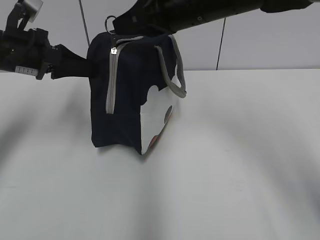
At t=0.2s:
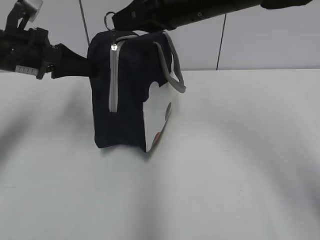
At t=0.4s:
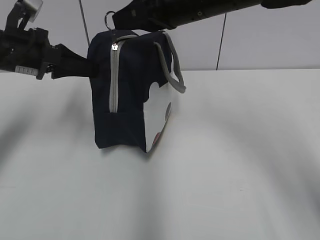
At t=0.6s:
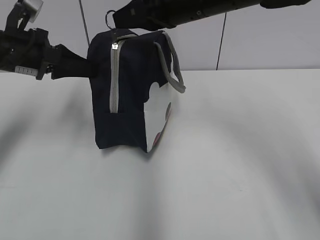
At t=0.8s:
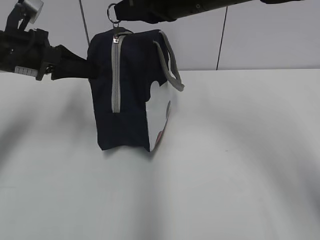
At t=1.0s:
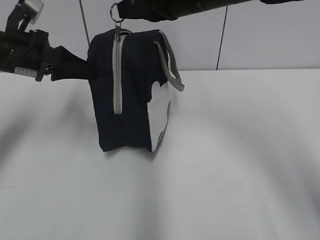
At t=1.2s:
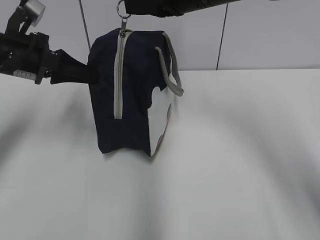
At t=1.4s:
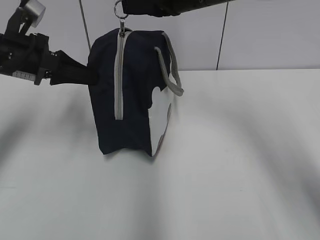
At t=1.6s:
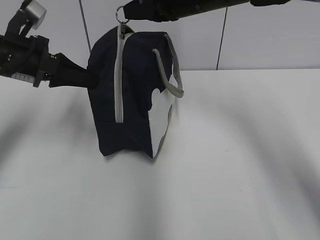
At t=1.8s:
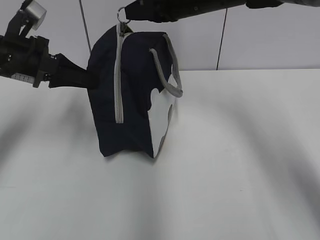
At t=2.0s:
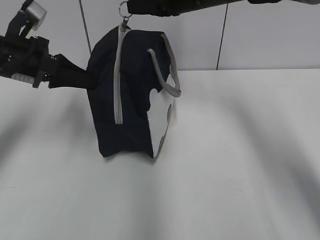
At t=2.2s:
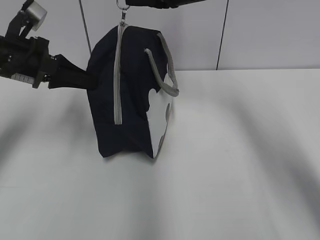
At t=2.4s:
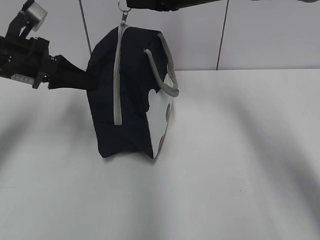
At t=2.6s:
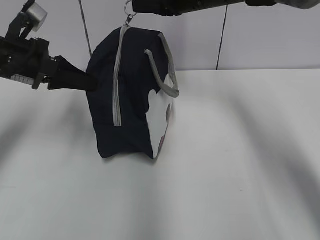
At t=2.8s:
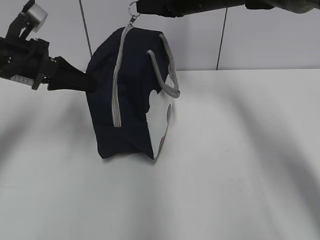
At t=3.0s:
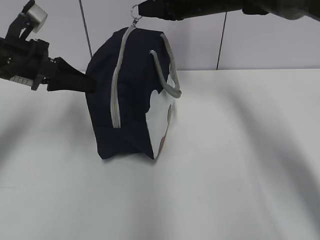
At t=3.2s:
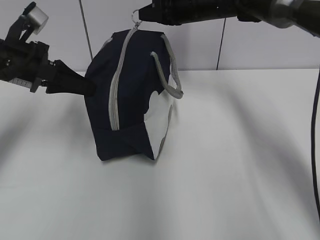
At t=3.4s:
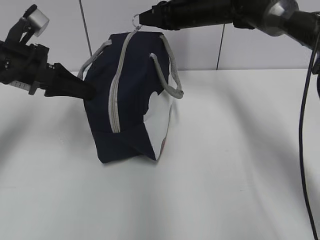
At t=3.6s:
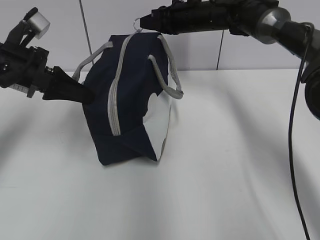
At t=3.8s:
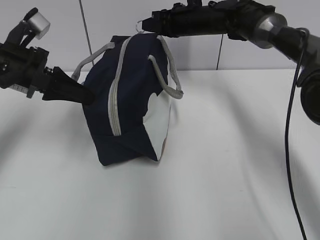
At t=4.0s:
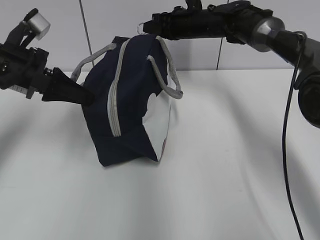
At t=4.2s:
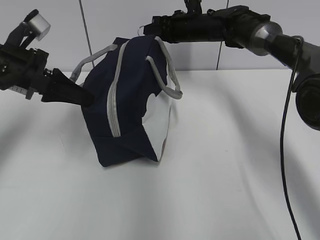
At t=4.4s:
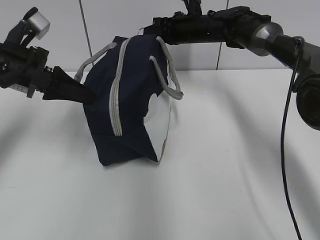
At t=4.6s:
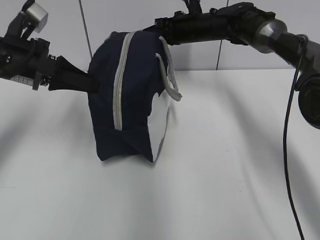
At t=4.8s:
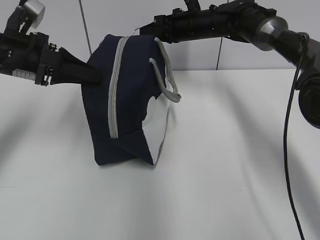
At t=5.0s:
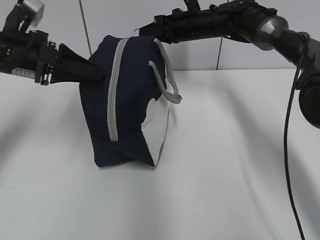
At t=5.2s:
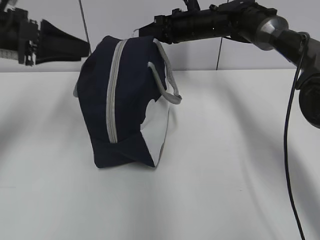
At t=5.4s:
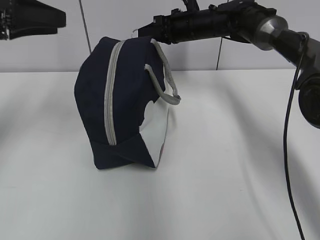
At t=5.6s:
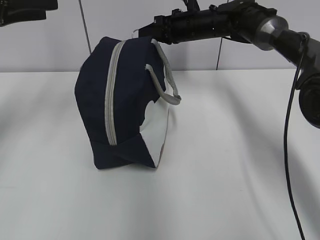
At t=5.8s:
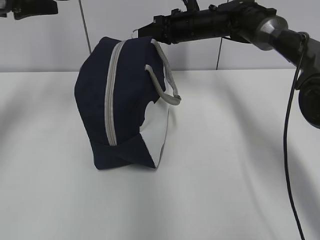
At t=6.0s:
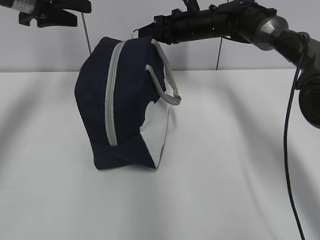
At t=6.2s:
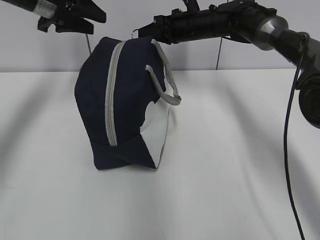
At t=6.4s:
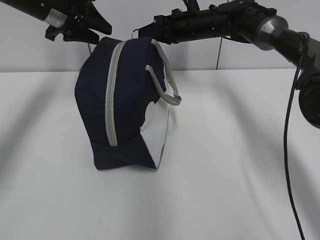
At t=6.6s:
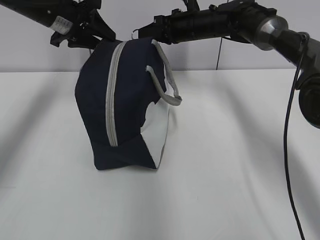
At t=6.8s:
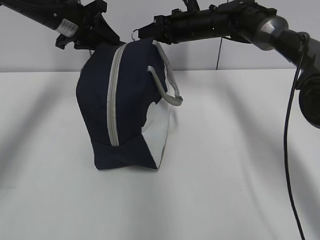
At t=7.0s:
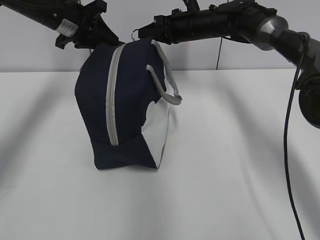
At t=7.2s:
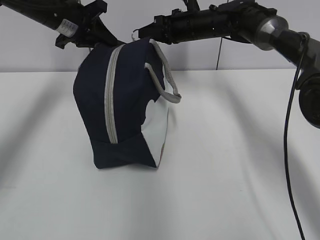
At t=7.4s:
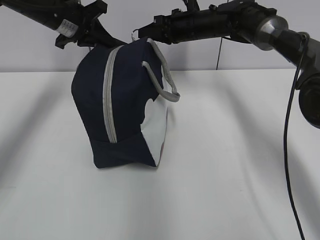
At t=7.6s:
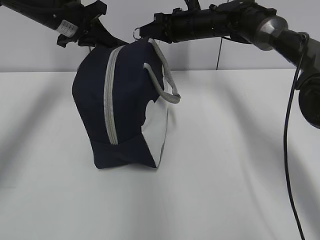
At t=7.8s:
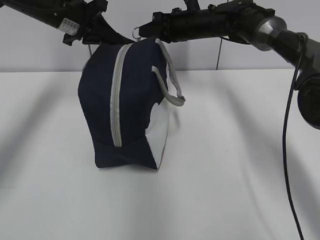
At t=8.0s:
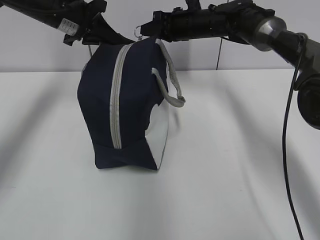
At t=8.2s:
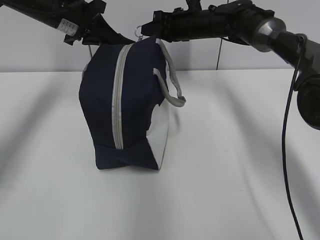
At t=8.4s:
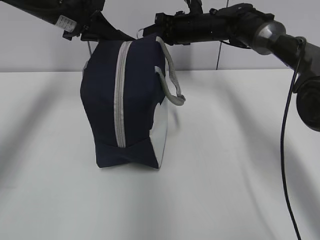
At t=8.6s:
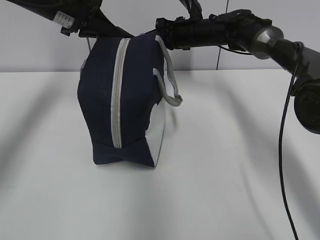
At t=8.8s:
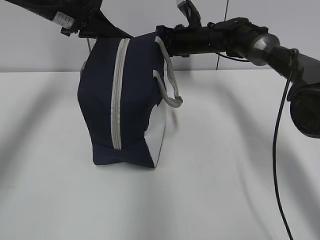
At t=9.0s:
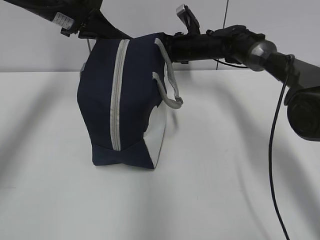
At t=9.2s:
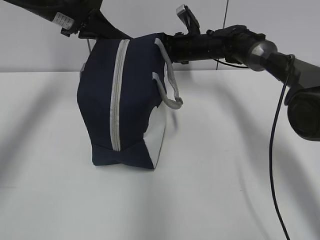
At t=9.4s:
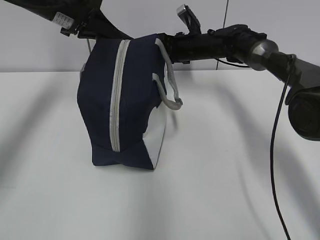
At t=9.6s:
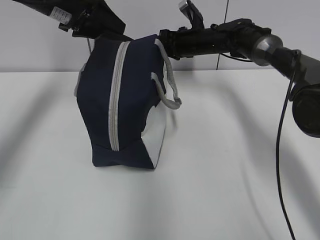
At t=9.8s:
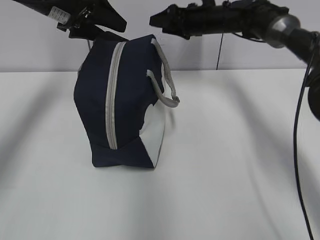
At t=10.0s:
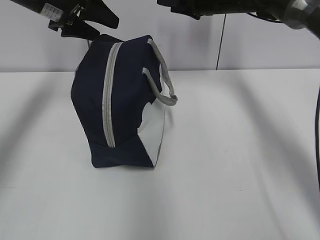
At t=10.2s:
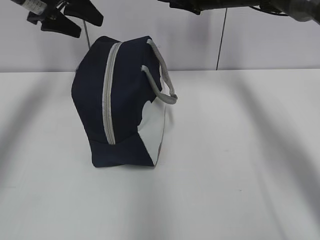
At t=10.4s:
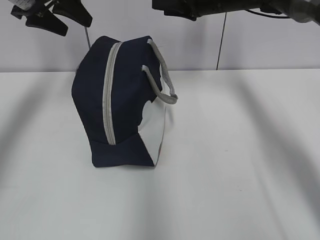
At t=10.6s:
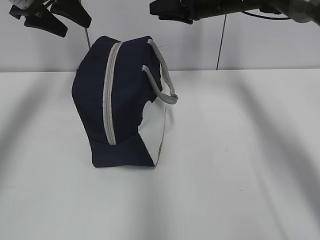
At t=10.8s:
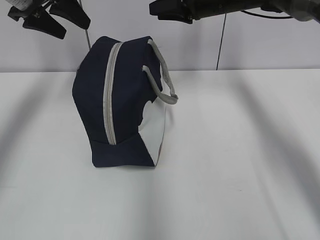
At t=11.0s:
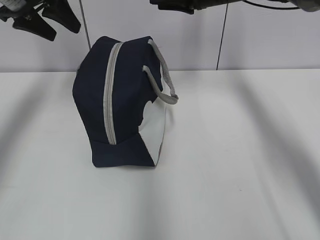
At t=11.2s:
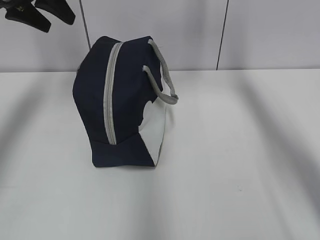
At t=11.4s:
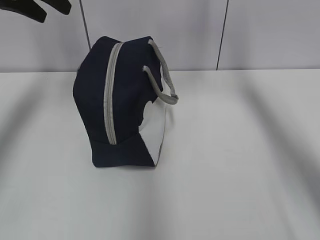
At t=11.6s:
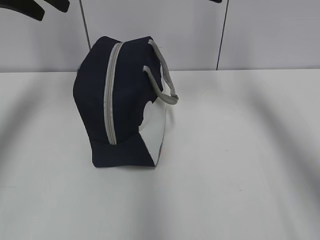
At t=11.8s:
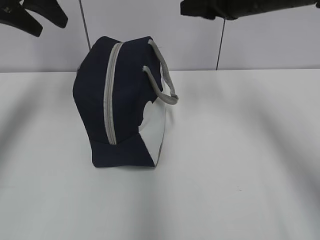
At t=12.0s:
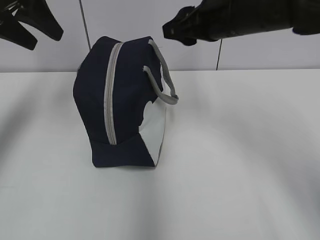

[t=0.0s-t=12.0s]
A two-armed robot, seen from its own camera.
t=0.0s to t=1.6s: The right gripper is displaced forward by some 5 cm.
t=1.6s to t=3.0s: The right gripper goes roughly 10 cm forward.
t=3.0s to t=4.4s: The right gripper heads downward and forward, covering roughly 10 cm.
t=4.4s to t=6.0s: The left gripper goes roughly 15 cm forward and upward, and opens.
t=6.0s to t=7.6s: The left gripper shifts by roughly 10 cm, and closes up.
t=7.6s to t=9.0s: The right gripper moves downward, some 5 cm.
t=9.0s to t=10.4s: The left gripper ends up about 5 cm from where it was, and opens up. Meanwhile the right gripper travels upward by some 10 cm, and opens its fingers.
t=10.4s to t=12.0s: The left gripper shifts some 5 cm backward. The right gripper goes some 15 cm backward.

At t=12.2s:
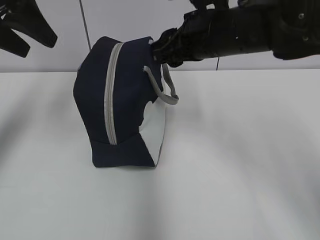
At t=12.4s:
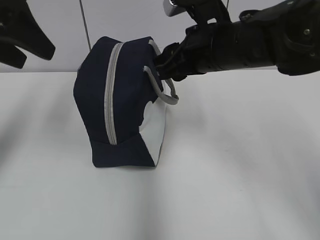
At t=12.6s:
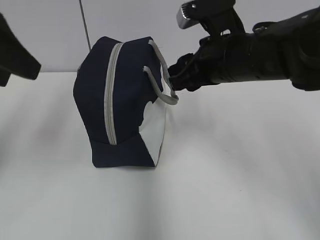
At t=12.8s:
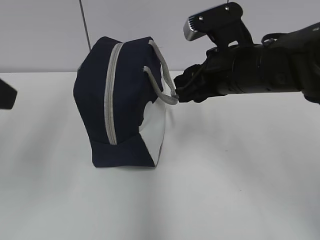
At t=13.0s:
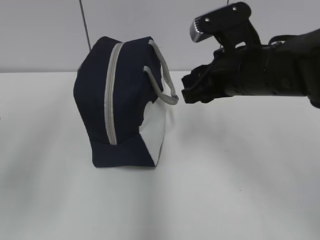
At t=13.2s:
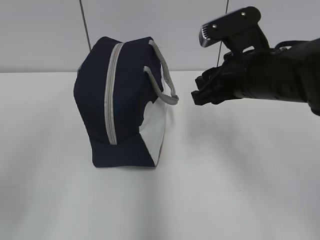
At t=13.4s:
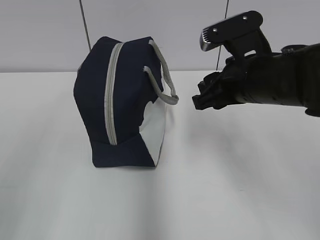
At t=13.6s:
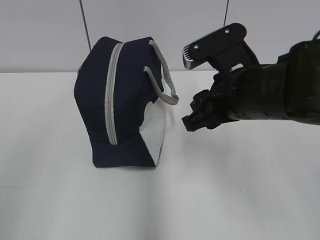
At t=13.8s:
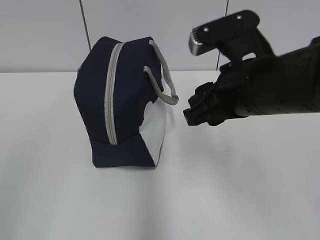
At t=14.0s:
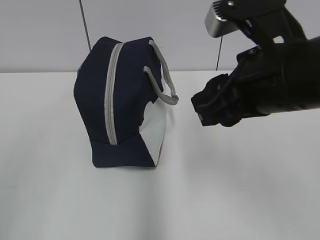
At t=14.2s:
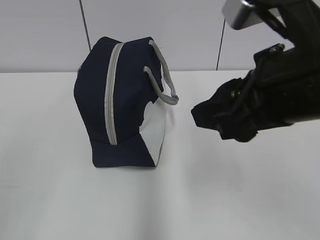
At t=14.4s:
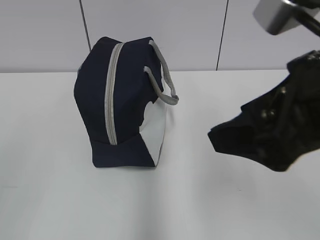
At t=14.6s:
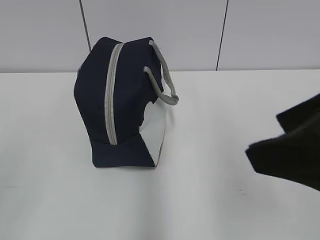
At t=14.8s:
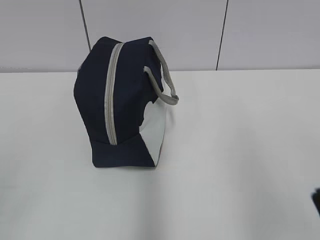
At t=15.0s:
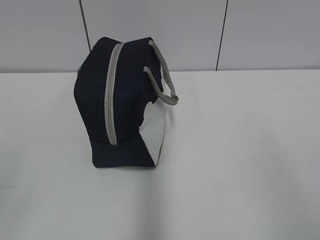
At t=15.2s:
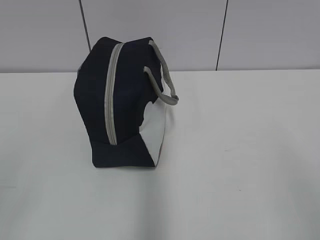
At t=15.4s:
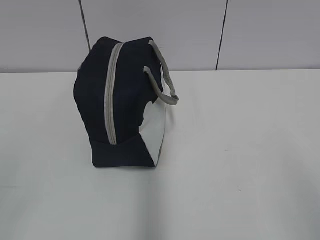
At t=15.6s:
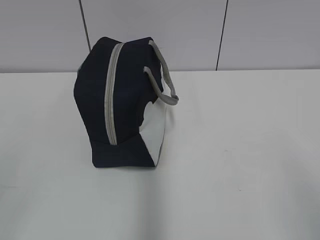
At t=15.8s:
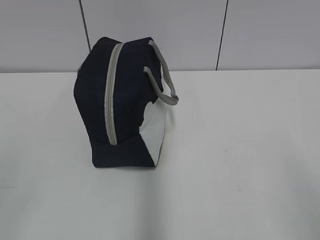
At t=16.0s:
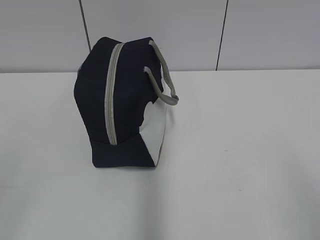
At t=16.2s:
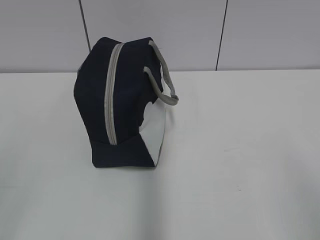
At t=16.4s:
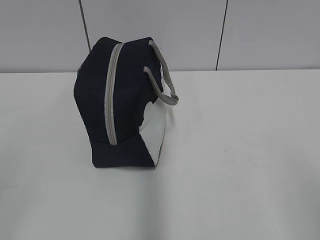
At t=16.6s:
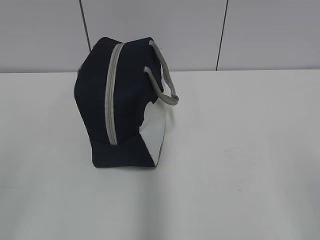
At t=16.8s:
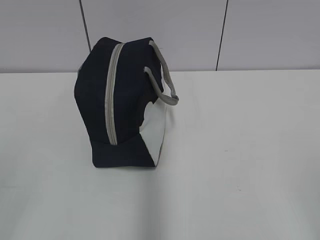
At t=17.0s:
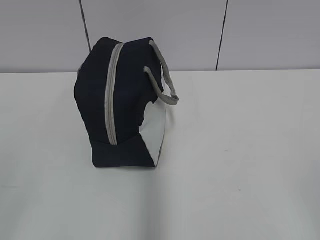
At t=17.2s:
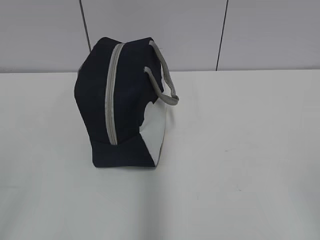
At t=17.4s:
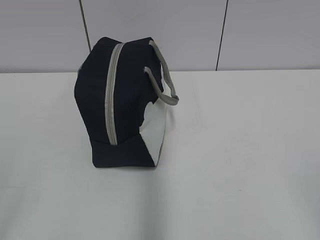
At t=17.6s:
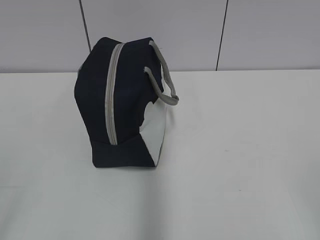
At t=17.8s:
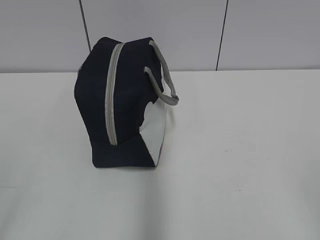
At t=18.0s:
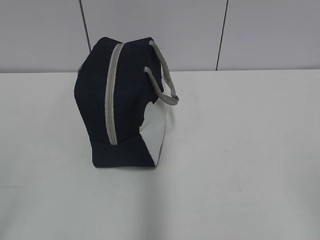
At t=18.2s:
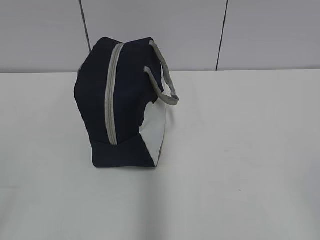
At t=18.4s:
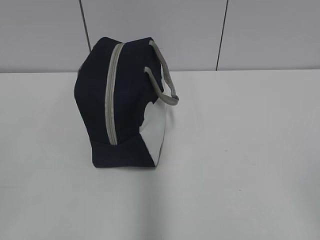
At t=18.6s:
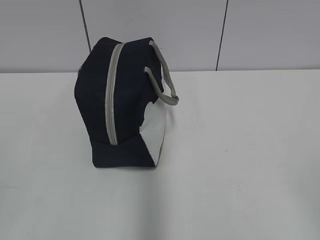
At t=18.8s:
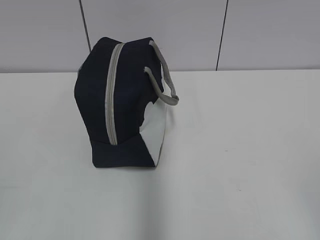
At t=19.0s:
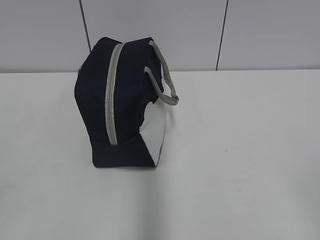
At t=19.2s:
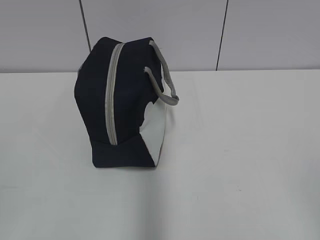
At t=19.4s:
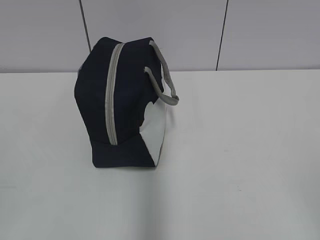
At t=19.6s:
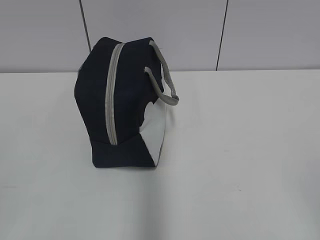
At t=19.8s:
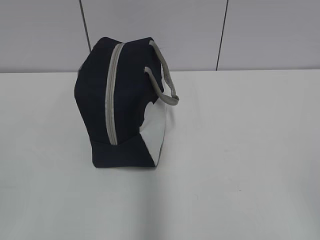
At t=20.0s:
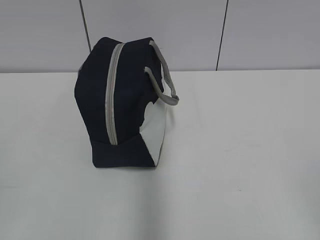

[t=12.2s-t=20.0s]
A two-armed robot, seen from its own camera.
t=12.2s to t=13.8s: The right gripper travels backward by approximately 10 cm; the left gripper heads backward, covering some 30 cm.
t=13.8s to t=15.4s: The right gripper is displaced backward and to the right by approximately 30 cm, and opens its fingers, while the left gripper changes place by approximately 5 cm.
t=18.4s to t=20.0s: Both grippers stay about where they are.
